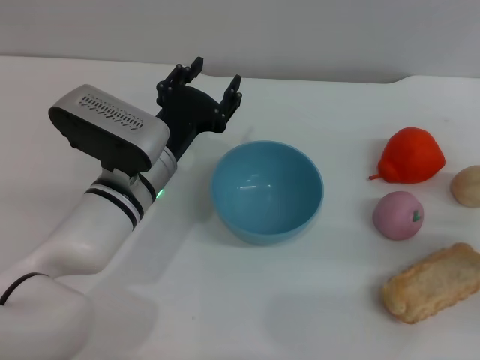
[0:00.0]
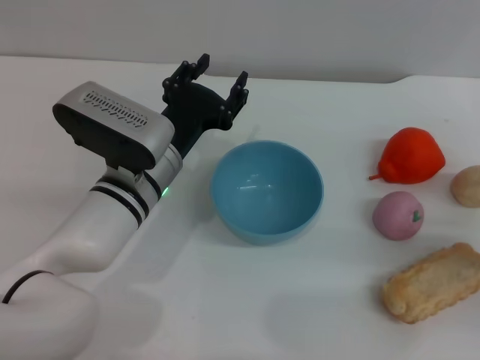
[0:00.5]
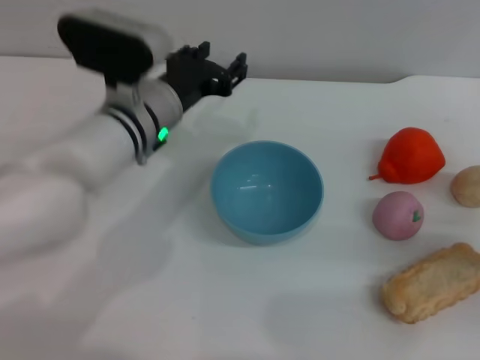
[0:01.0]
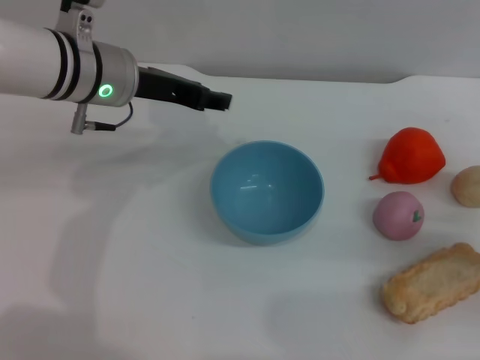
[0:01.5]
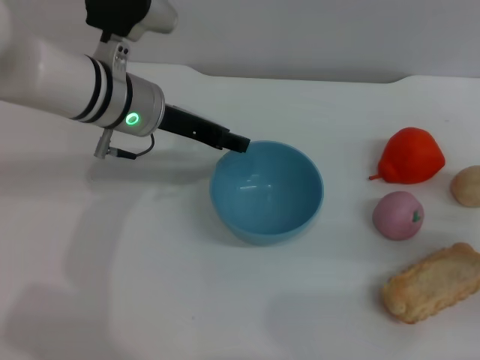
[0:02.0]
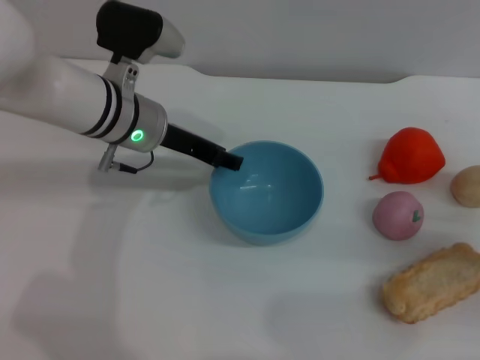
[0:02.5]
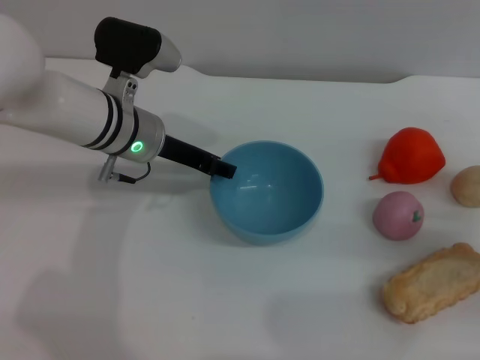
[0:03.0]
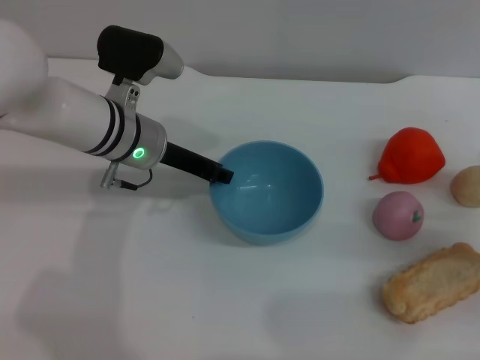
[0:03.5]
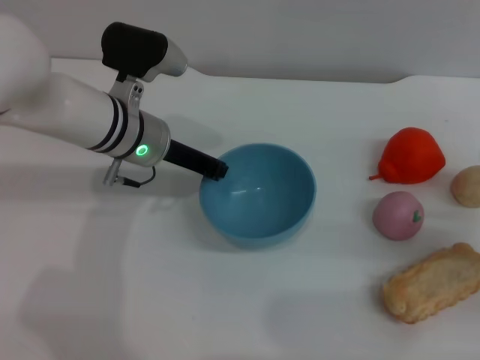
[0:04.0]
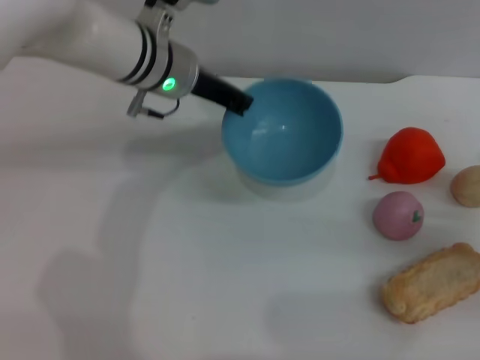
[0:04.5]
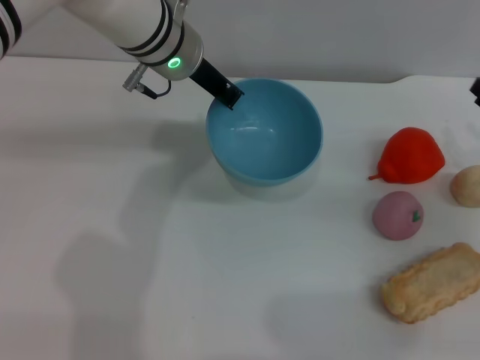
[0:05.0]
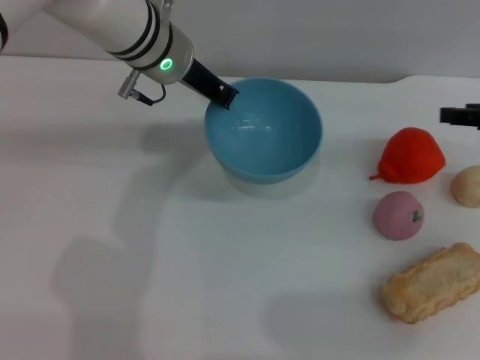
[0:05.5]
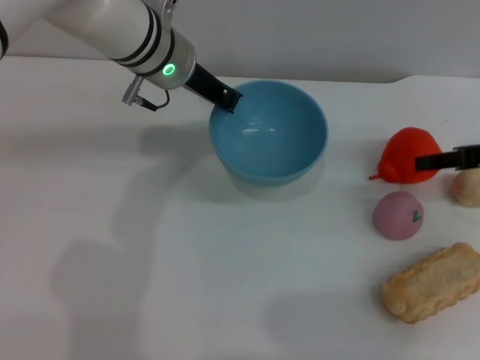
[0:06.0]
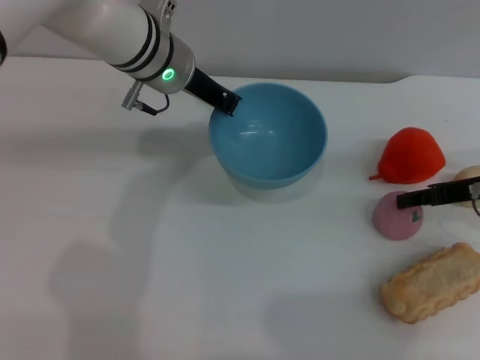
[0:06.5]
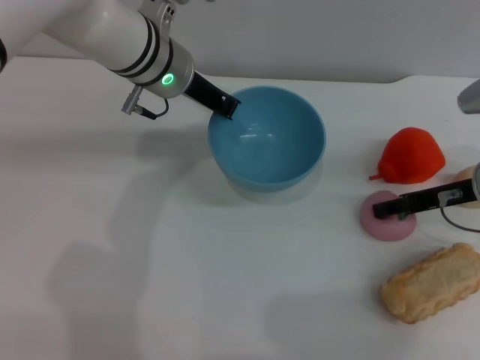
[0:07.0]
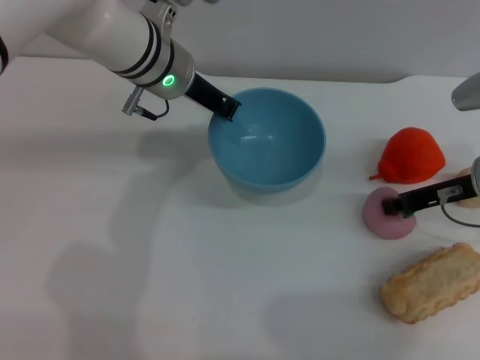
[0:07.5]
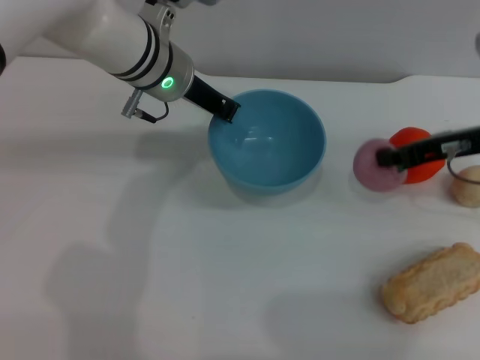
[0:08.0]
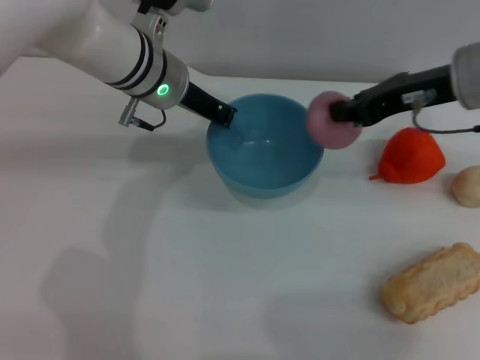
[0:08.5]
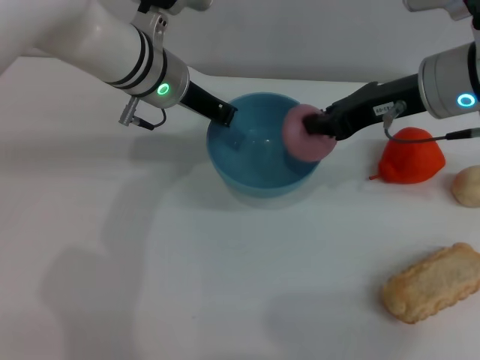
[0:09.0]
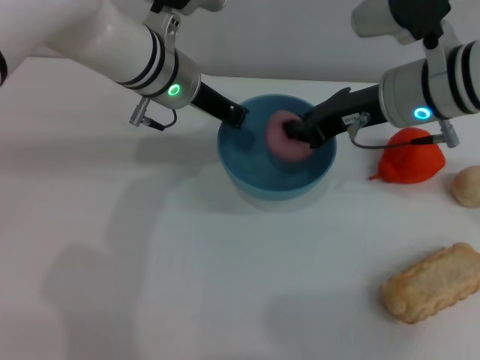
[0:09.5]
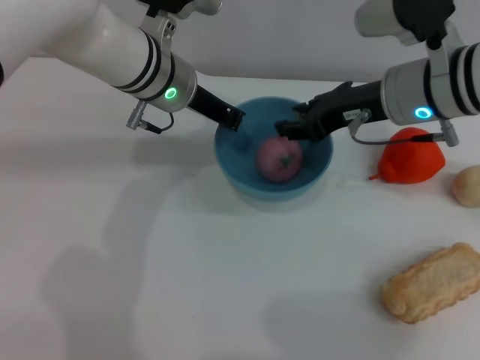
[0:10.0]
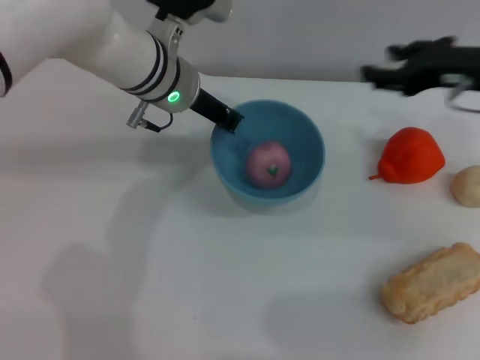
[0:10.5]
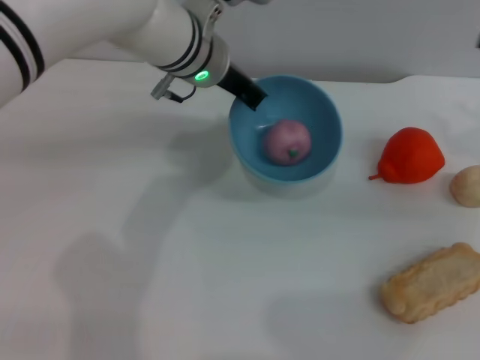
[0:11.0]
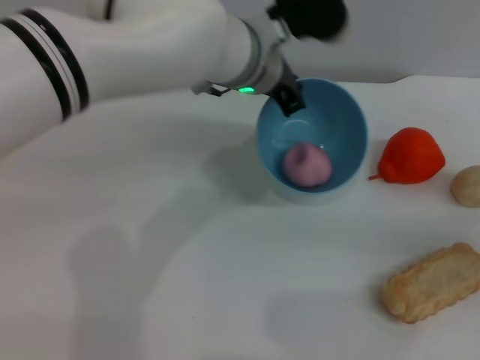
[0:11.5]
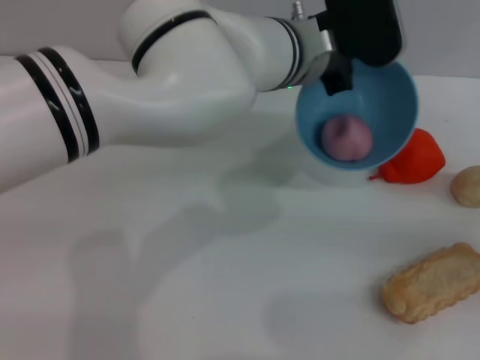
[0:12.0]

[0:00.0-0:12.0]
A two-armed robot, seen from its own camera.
Task of the whole recording: put the peach into the blue bowl and pour it out repeatedly.
Step, 0:00.0 to 0:04.0: Pick up the bowl with the left gripper.
Step, 0:04.5 to 0:08.0: Pick up the peach with the right gripper.
Step, 0:08.5 to 0:10.0: Place the peach into the bowl.
0:00.0 to 0:02.0: The left gripper travels upward and forward by some 10 cm.
0:02.0 to 0:04.0: The left gripper closes up.
0:04.0 to 0:06.0: The left gripper goes about 5 cm upward. The right gripper goes roughly 15 cm upward and forward.
0:06.0 to 0:08.0: The right gripper shifts some 5 cm to the left, and closes.
0:08.0 to 0:10.0: The right gripper moves to the left, roughly 10 cm.
0:10.0 to 0:12.0: The right gripper is displaced to the right, downward and backward by some 25 cm, and opens, while the left gripper is displaced to the right by approximately 10 cm.

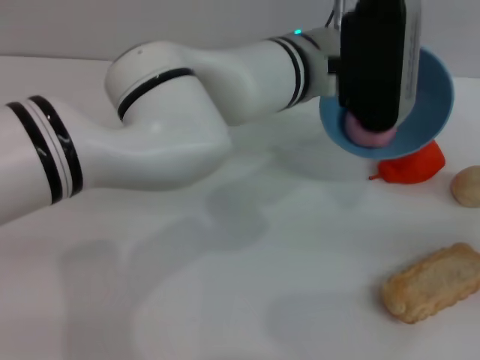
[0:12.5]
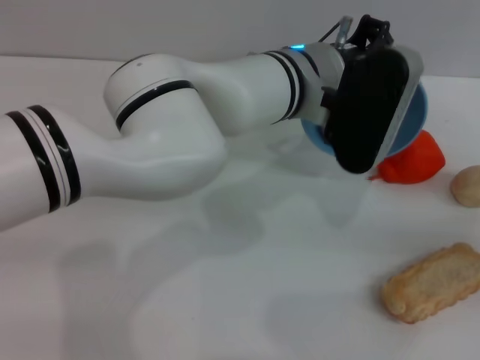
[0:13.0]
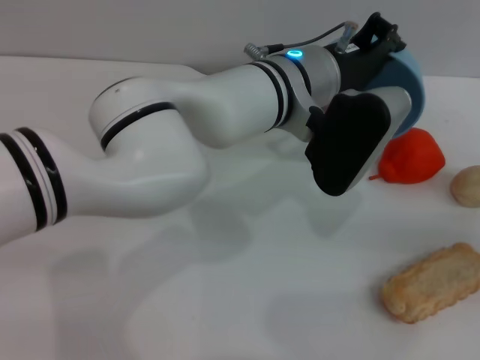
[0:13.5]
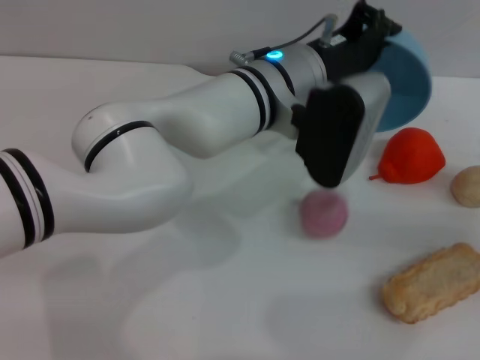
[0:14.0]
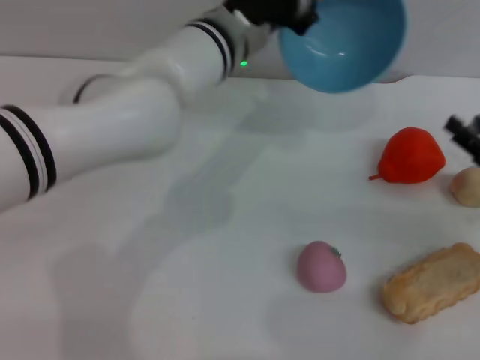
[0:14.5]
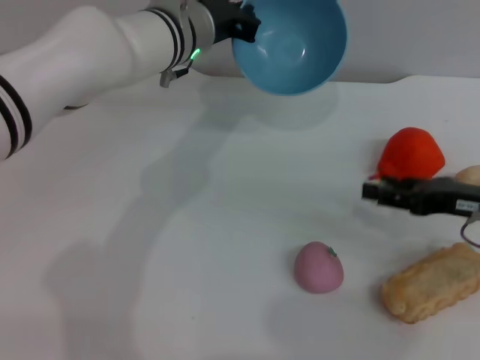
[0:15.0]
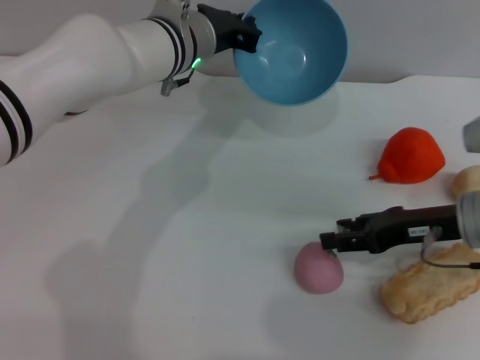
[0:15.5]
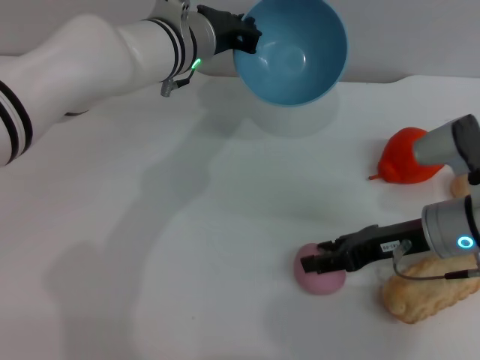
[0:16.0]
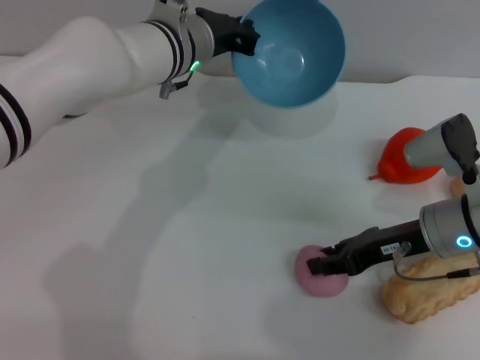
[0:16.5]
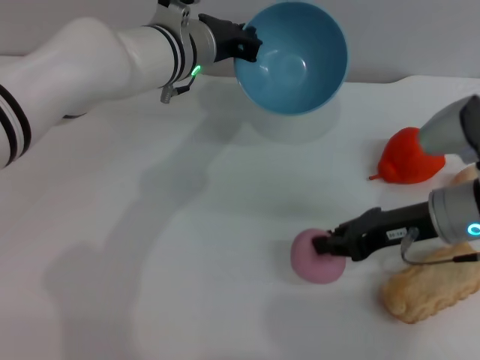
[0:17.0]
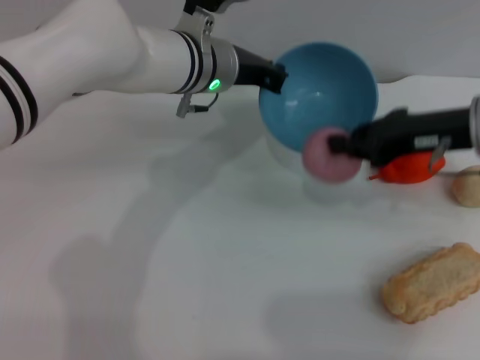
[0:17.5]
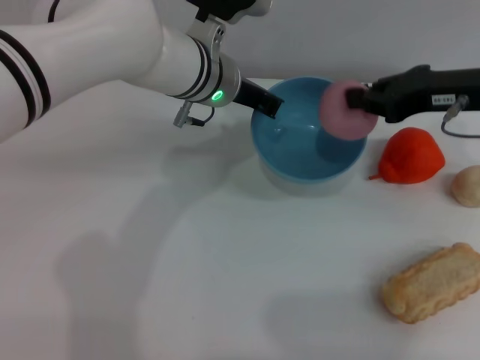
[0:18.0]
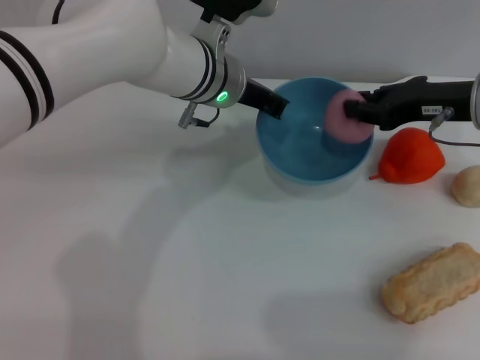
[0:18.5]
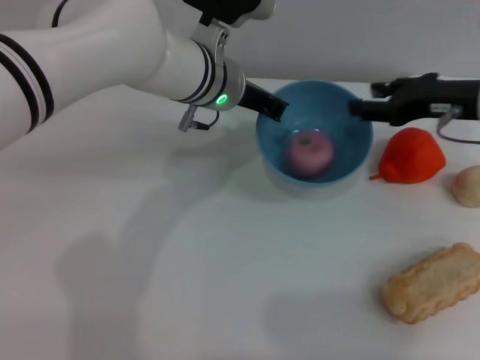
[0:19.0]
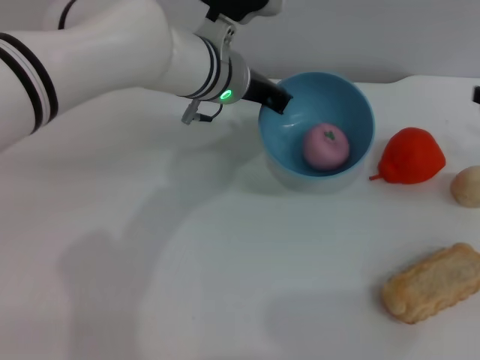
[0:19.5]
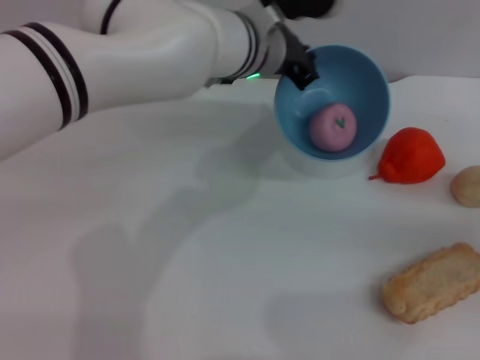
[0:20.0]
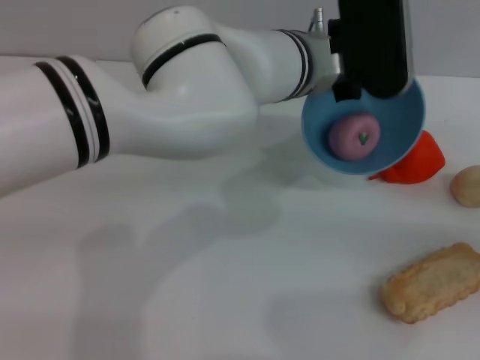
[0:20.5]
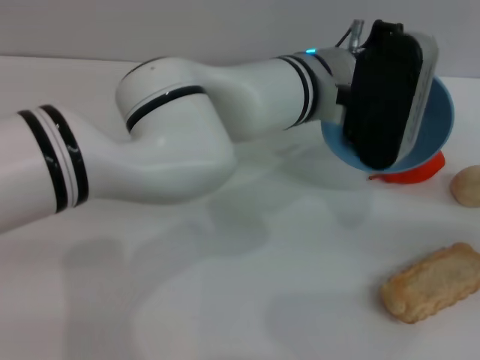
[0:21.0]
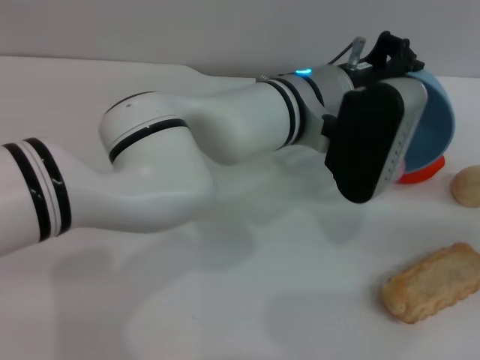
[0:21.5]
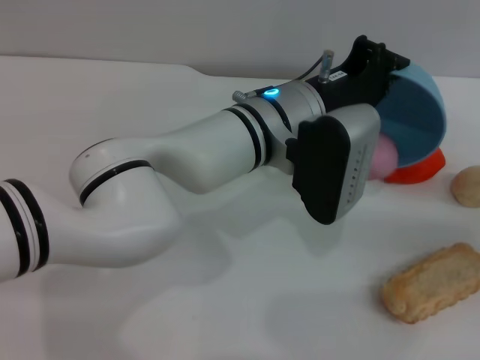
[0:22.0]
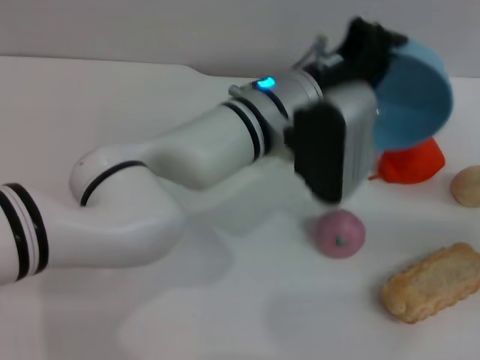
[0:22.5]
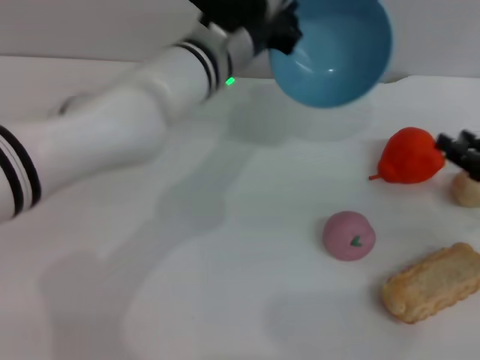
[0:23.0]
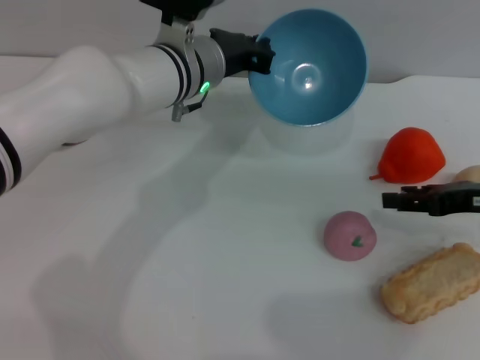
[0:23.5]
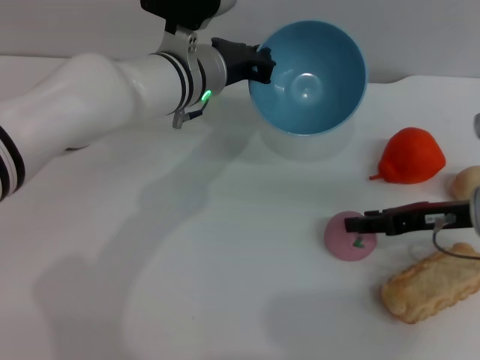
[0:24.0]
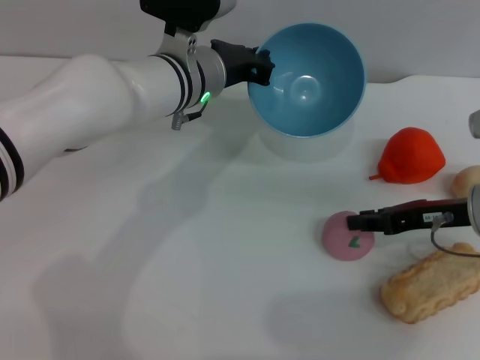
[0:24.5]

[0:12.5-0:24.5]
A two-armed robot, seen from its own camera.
Task of the whole recording: put the peach into the blue bowl and pour it out repeatedly.
Step, 0:14.0 to 0:17.0: Pick up the peach with the right gripper.
Step, 0:17.5 to 0:19.0: Place the peach into the bowl.
Step, 0:19.5 to 0:22.0: Pour the peach out of bowl.
0:12.5 to 0:14.5: The left gripper shifts approximately 5 cm to the left.
0:14.5 to 0:16.5: The left gripper travels to the left by roughly 5 cm; the right gripper heads to the left, covering some 10 cm.
0:16.5 to 0:18.5: The right gripper shifts some 10 cm upward and forward, and closes.
0:18.5 to 0:20.5: The left gripper goes some 10 cm to the right; the right gripper heads to the right, backward and downward, covering some 20 cm, and opens up.
0:20.5 to 0:22.5: The left gripper changes place by about 5 cm.
0:22.5 to 0:24.5: The right gripper travels to the left by some 10 cm. The left gripper goes roughly 10 cm to the left and forward.

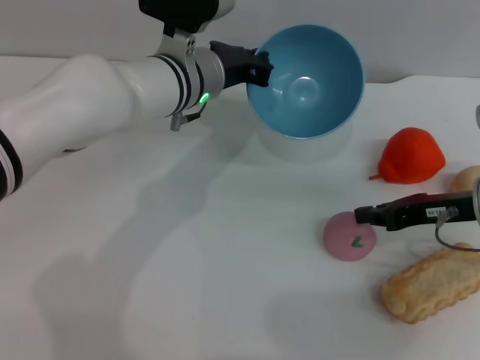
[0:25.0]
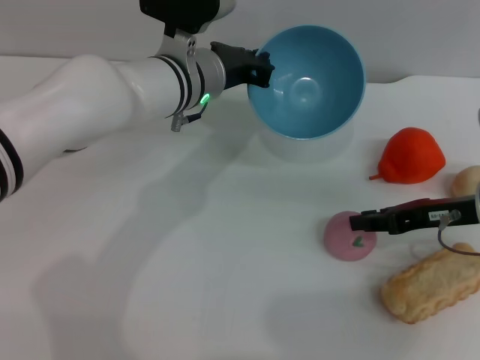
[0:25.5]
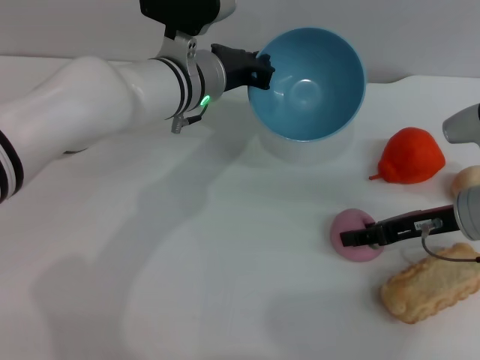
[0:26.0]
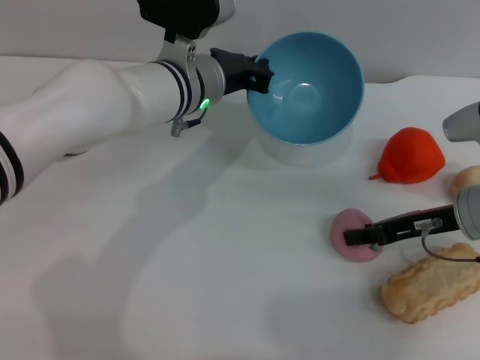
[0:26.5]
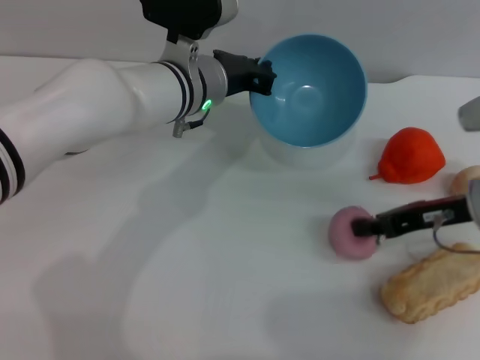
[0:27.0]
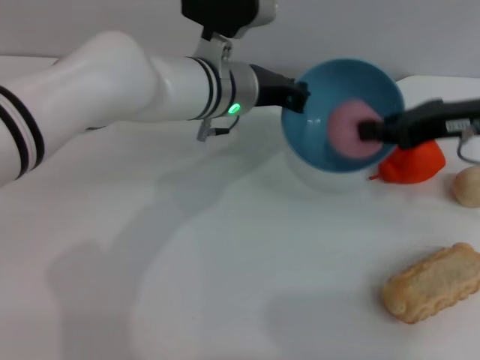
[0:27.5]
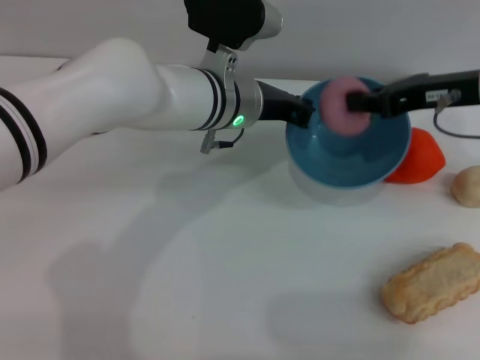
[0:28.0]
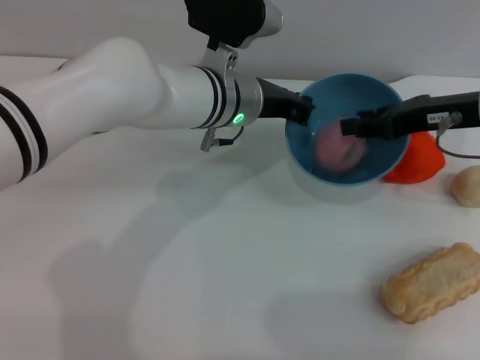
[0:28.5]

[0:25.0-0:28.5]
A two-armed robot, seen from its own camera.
Task of the whole recording: put the peach into the blue bowl and pour it out repeatedly.
Step, 0:25.0 to 0:27.0: Pick up the peach with the right gripper.
0:25.0 to 0:27.0: The right gripper opens, then closes once more.
0:27.0 to 0:28.5: The right gripper goes approximately 10 cm upward.
